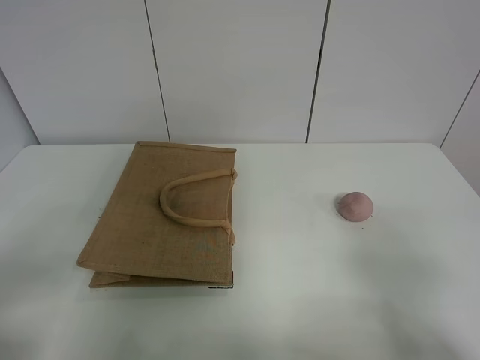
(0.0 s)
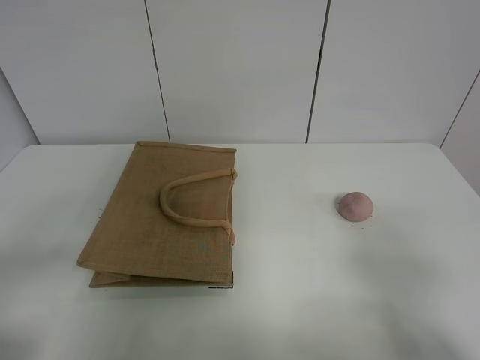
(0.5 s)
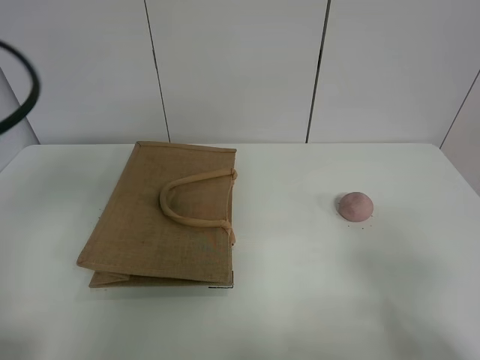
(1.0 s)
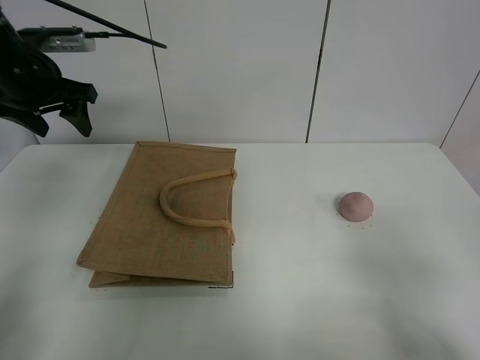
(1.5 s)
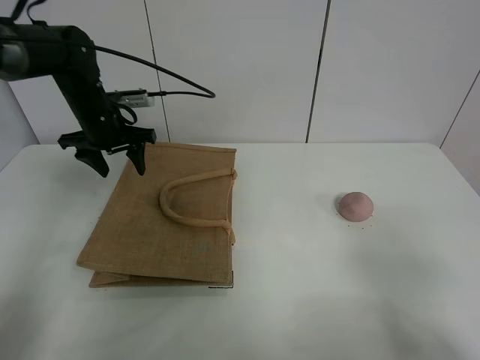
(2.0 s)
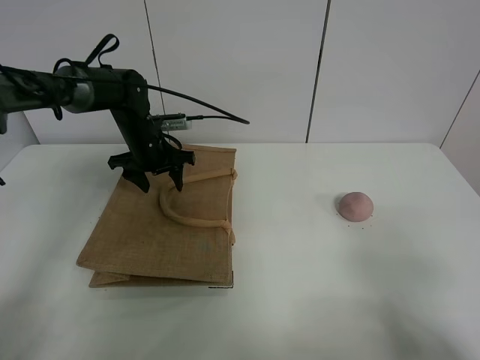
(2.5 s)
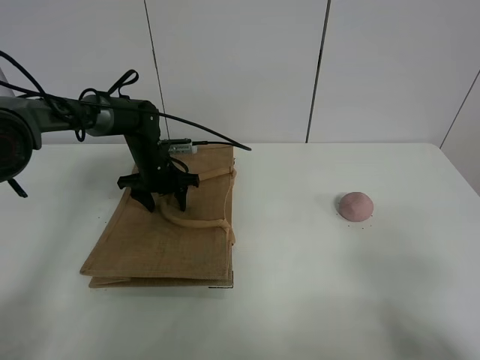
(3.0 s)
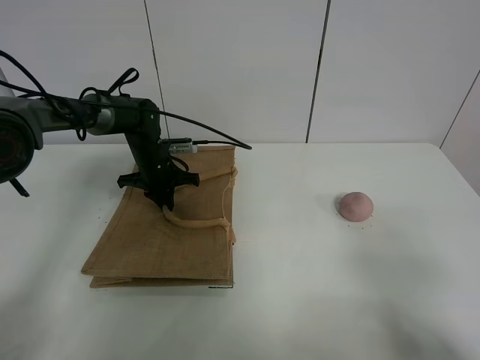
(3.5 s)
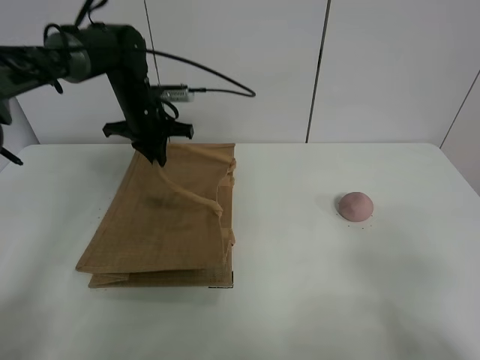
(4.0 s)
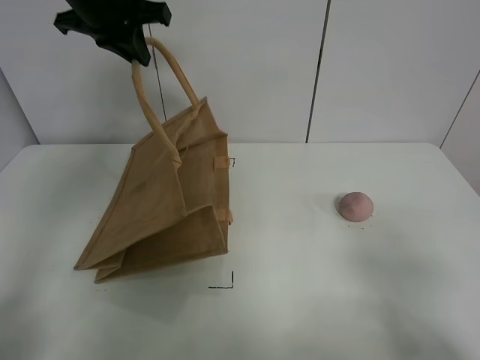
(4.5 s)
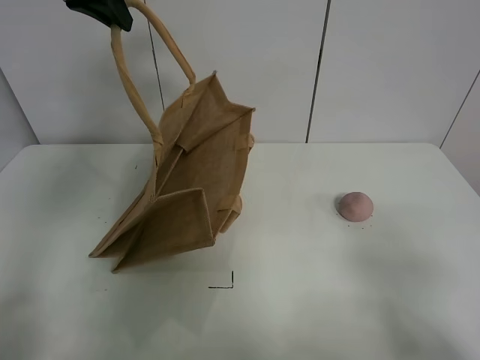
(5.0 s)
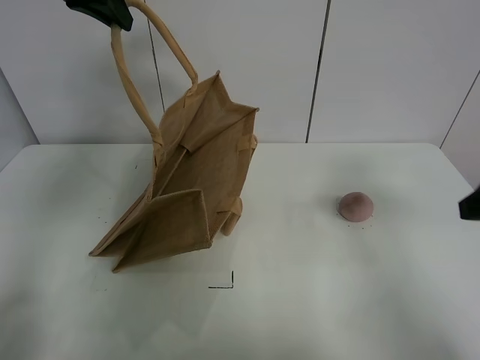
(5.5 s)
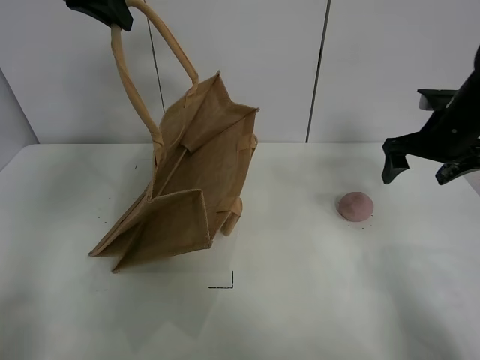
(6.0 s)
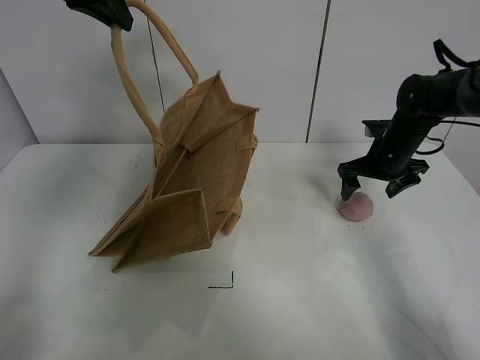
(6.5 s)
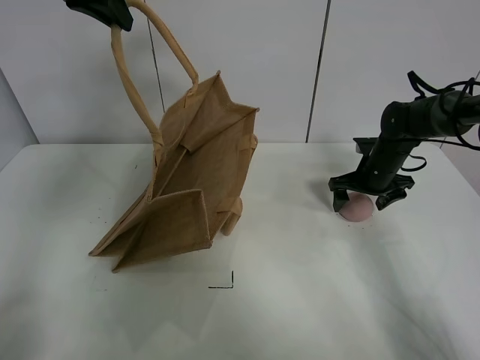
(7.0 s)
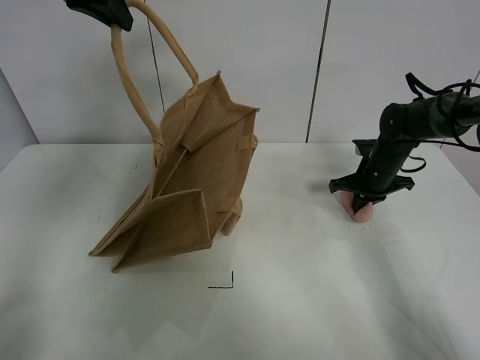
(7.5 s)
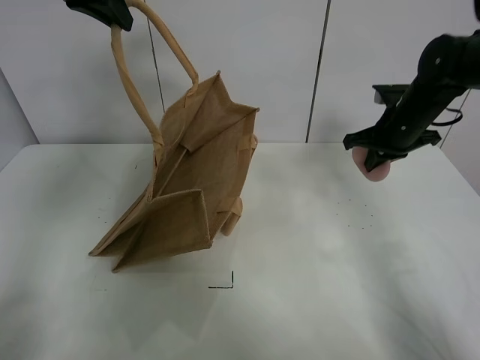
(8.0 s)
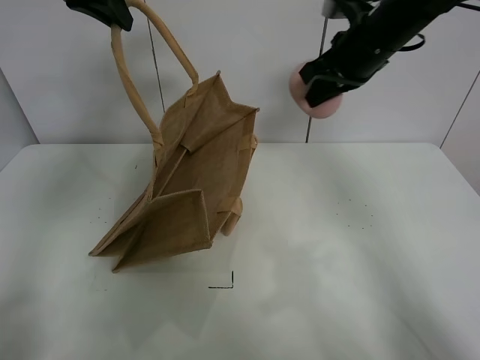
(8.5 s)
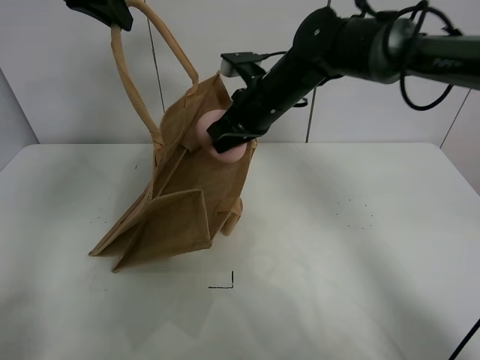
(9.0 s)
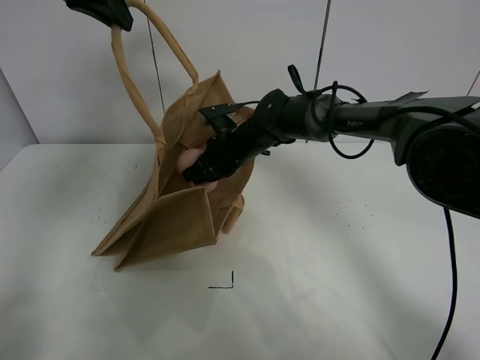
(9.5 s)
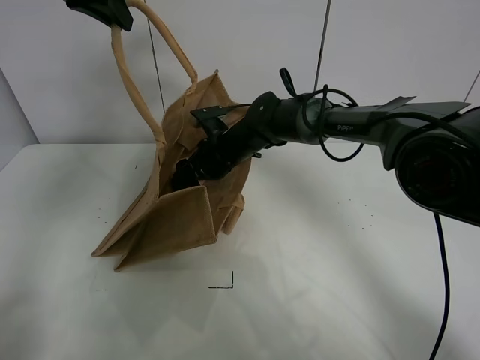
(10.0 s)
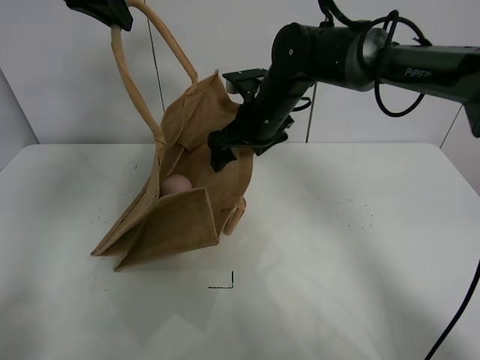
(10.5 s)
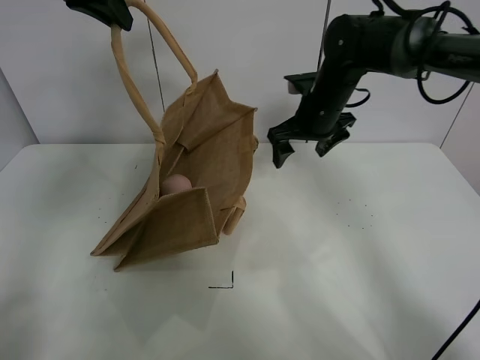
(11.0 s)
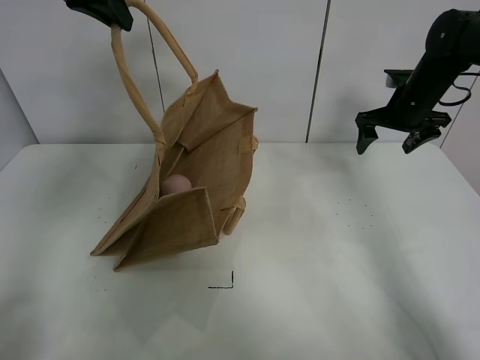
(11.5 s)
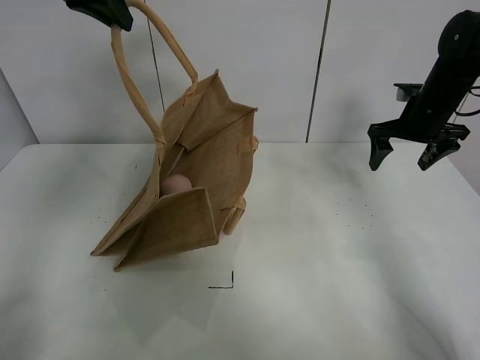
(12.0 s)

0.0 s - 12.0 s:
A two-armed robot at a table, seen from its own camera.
Task of the whole recording: open the brown linen bag and put the peach in the bag.
Step, 0.0 s - 4.5 s: Lift the handbag with left gripper.
Step, 5.0 s - 7.5 s: Grasp the peach with right gripper.
Step, 8.0 s - 10.5 s: Place the peach in the handbag with right gripper.
0.0 s - 2.0 s: The left gripper travels forward by approximately 40 cm.
2.0 s - 4.0 s: The left gripper travels downward and back again, roughly 10 cm each way, and closes its fingers.
4.0 s - 6.0 s: The right gripper travels forward by some 35 cm, while the left gripper heads upward and backward, covering roughly 25 cm.
6.0 s - 8.0 s: The right gripper moves approximately 15 cm downward and comes back, and closes up.
8.0 s - 10.0 s: The right gripper moves to the left, approximately 25 cm, and opens up.
10.0 s - 12.0 s: The right gripper heads to the right, covering about 30 cm.

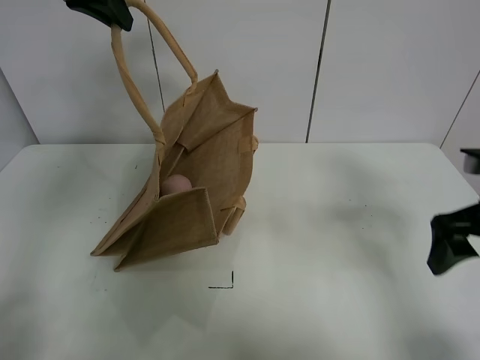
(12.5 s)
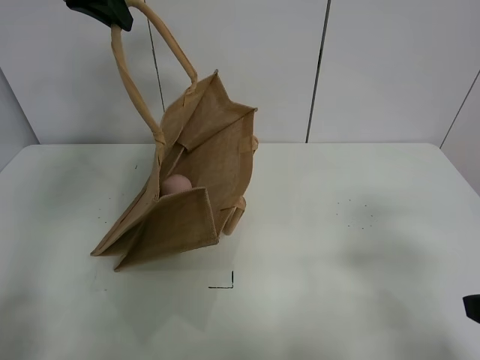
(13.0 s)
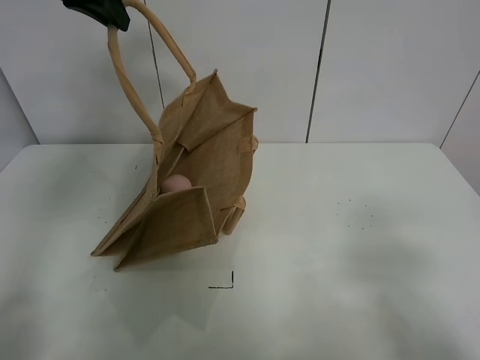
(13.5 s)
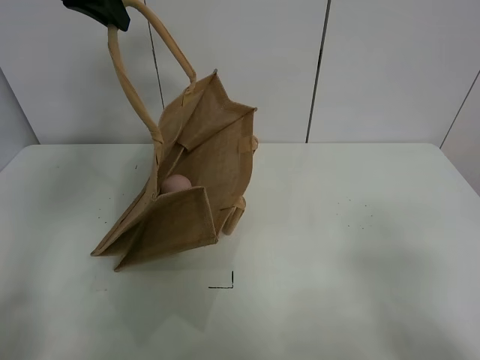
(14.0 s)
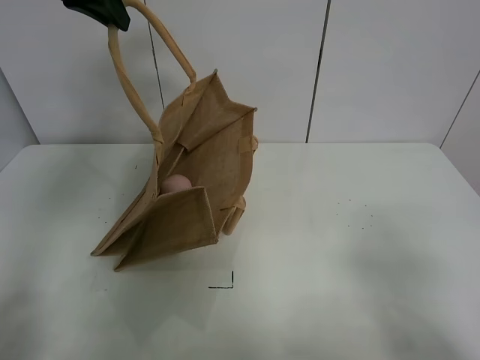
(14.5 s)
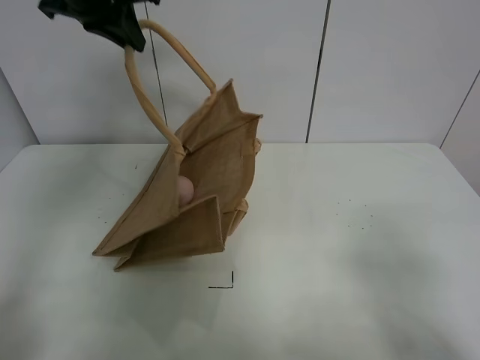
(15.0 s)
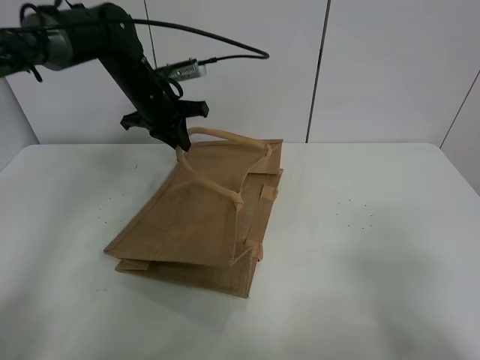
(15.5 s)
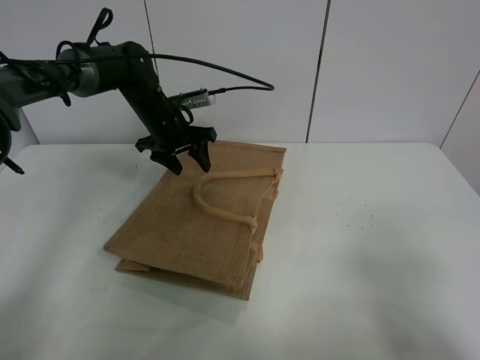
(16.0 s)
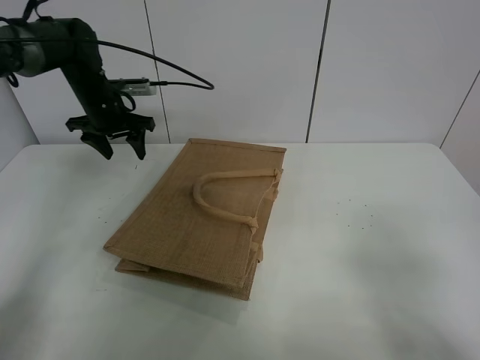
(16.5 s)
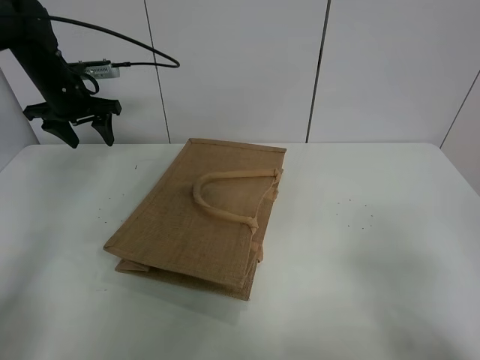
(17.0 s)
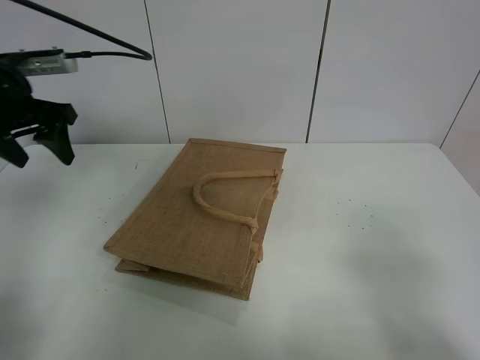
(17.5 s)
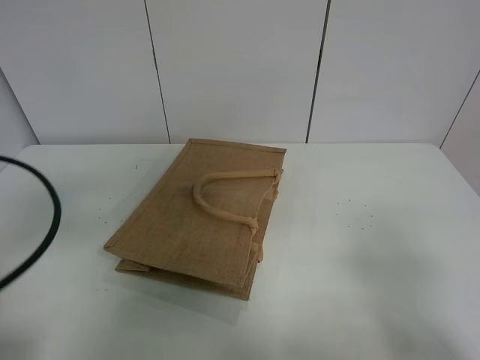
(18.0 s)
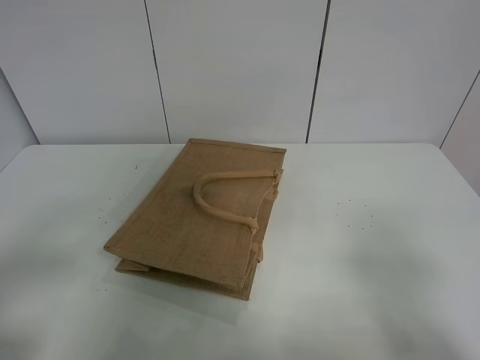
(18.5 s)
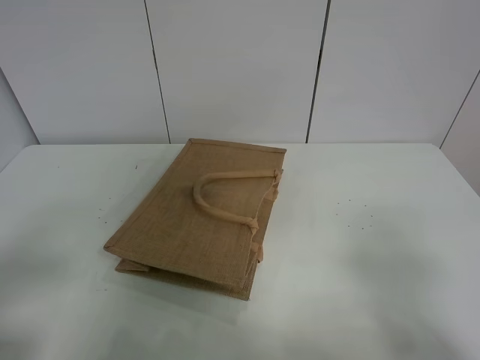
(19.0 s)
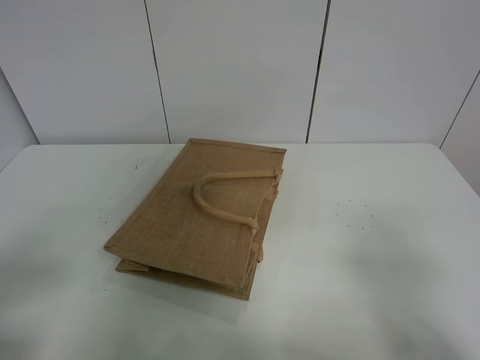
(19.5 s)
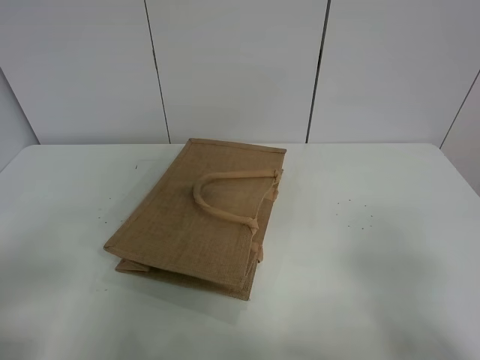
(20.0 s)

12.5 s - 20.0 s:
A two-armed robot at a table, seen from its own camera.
Task of the whole recording: open the brown linen bag and put the peach in the bag.
Step, 12.5 s - 16.0 s: Put down the handbag with left grippe.
12.5 s - 14.5 s: The right gripper goes some 20 cm backward.
14.5 s - 16.5 s: The left gripper goes approximately 25 cm downward and forward, and opens.
16.5 s - 18.0 s: The left gripper travels backward by some 35 cm.
18.0 s - 20.0 s: The left gripper is displaced backward by about 10 cm.

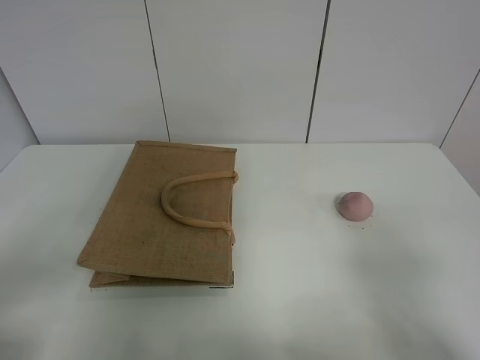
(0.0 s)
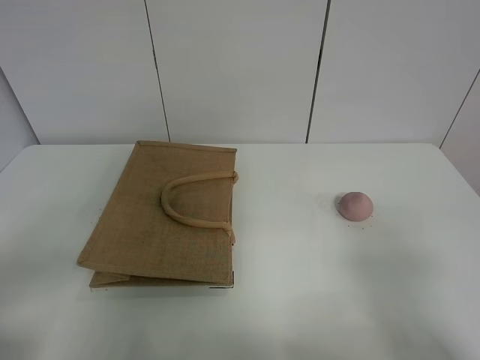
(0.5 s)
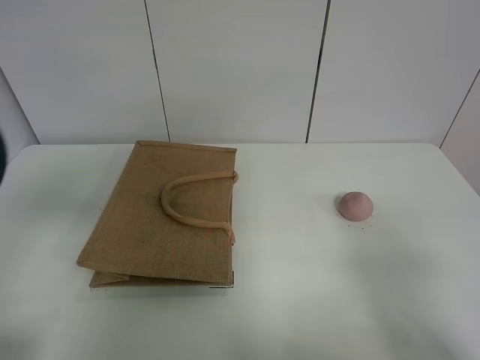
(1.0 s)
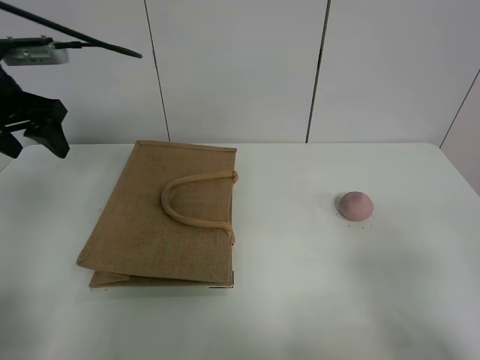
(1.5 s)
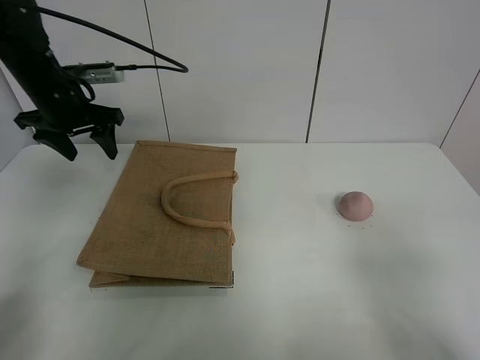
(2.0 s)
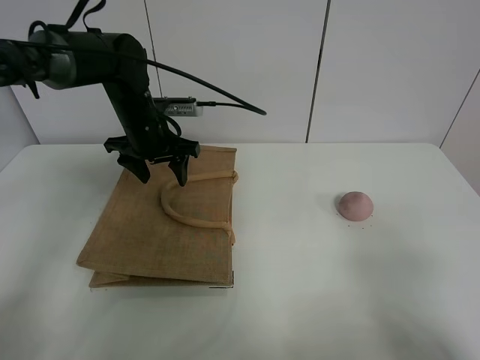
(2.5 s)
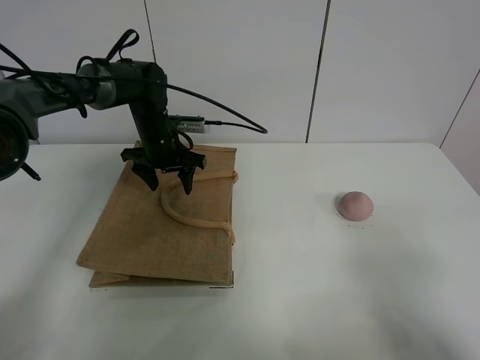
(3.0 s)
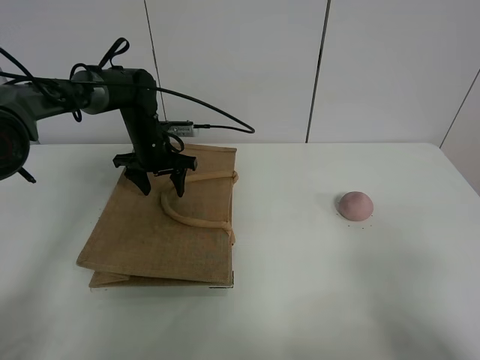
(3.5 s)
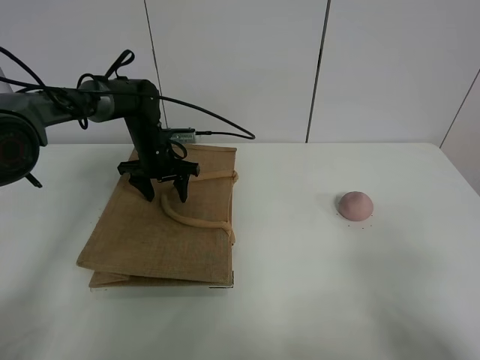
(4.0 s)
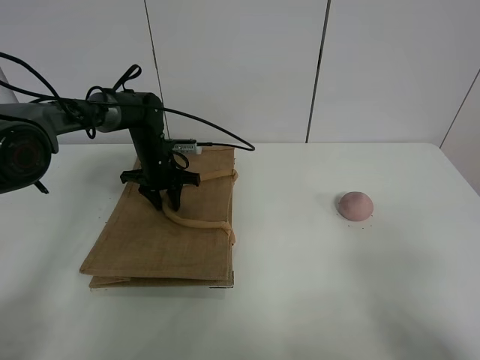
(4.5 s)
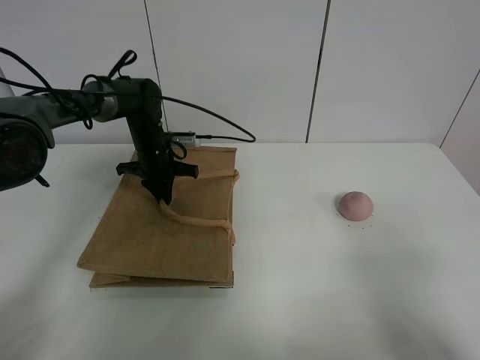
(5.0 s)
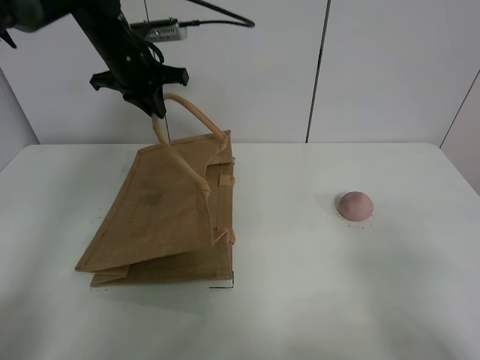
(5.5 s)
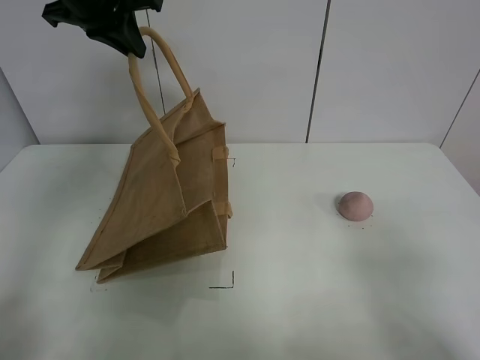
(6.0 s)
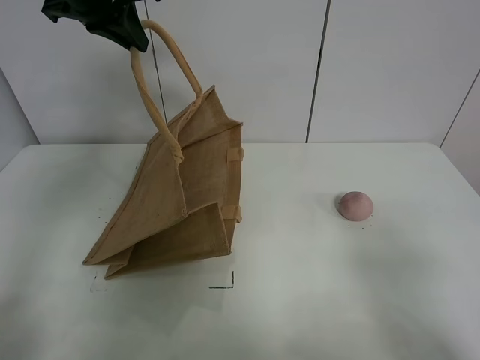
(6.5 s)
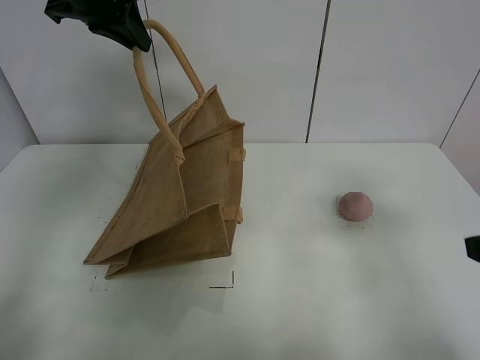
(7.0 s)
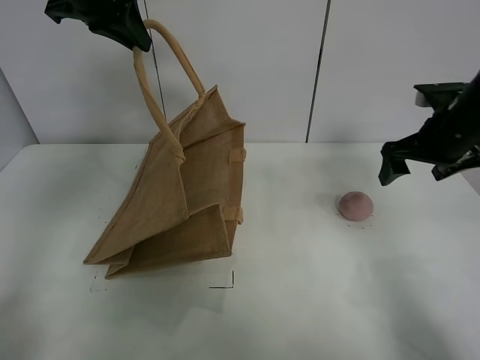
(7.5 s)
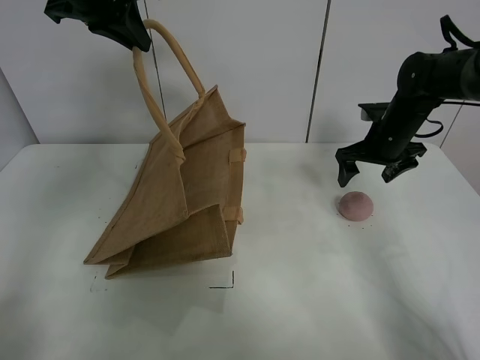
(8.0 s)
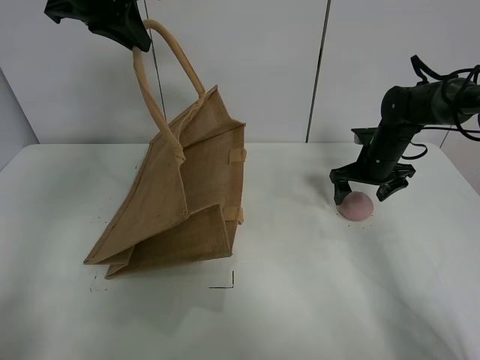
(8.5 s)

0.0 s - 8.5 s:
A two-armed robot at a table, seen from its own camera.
Task of the whole recording: open the brown linen bag and put the peach in the bag.
Step, 0.0 s - 6.0 s: Lift the handbag with left gripper.
0.0 s - 2.0 s: The left gripper moves forward, approximately 40 cm.
2.0 s - 4.0 s: The left gripper moves downward, to the right and forward, some 20 cm.
4.0 s - 6.5 s: The left gripper is displaced upward by about 30 cm, and closes.
6.5 s - 8.5 s: The right gripper heads forward, covering roughly 40 cm.
